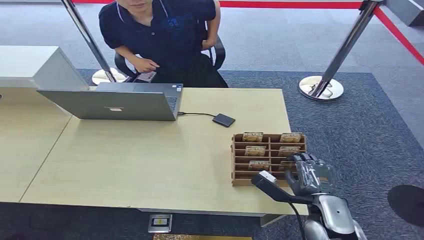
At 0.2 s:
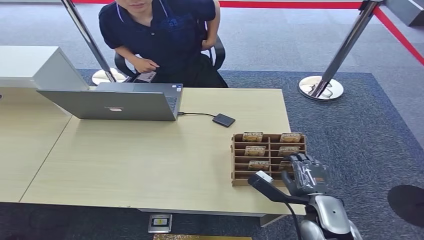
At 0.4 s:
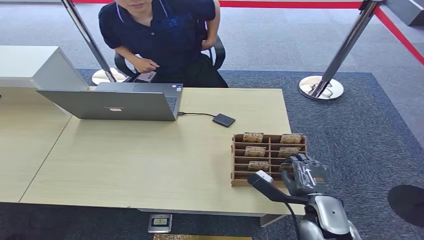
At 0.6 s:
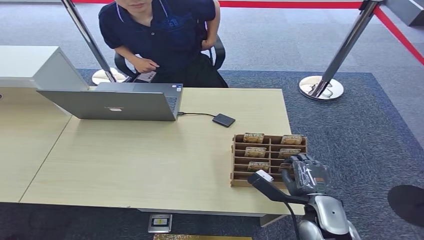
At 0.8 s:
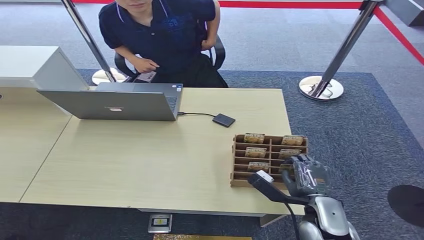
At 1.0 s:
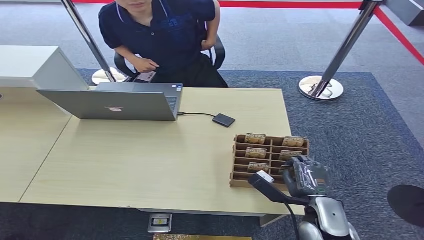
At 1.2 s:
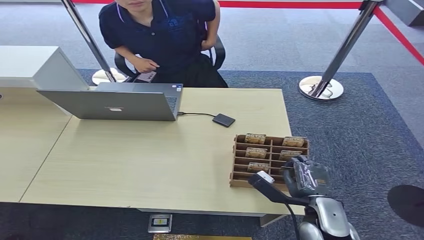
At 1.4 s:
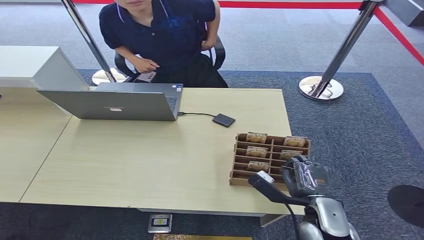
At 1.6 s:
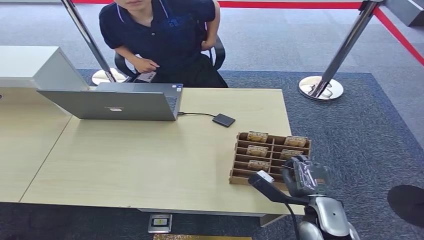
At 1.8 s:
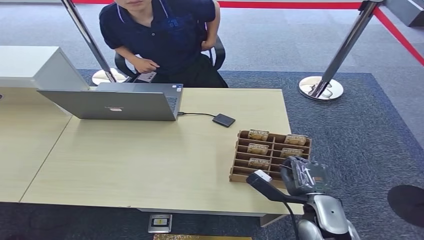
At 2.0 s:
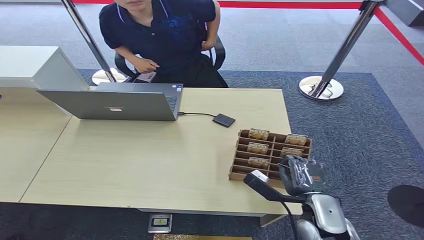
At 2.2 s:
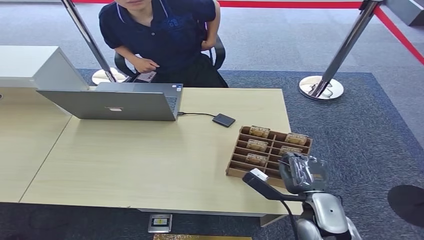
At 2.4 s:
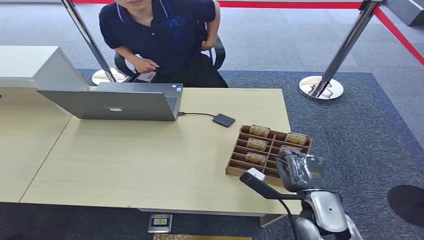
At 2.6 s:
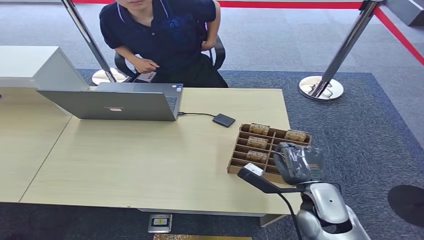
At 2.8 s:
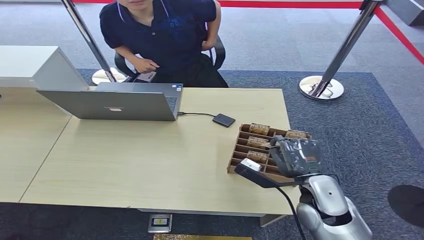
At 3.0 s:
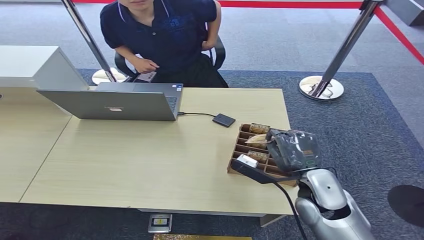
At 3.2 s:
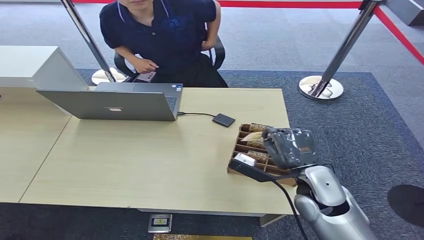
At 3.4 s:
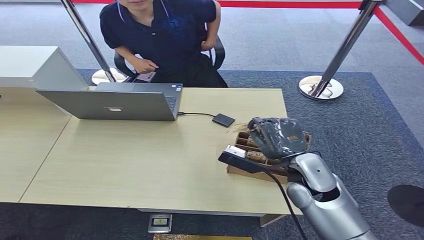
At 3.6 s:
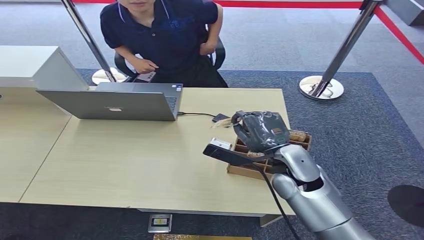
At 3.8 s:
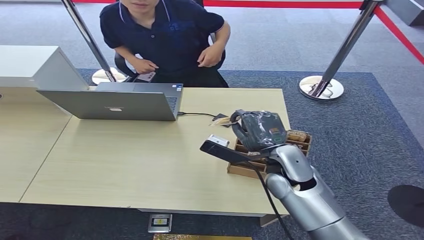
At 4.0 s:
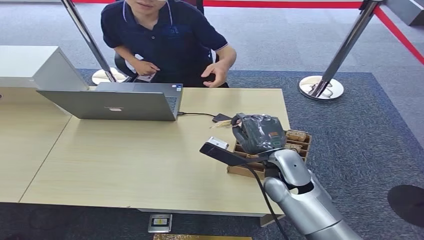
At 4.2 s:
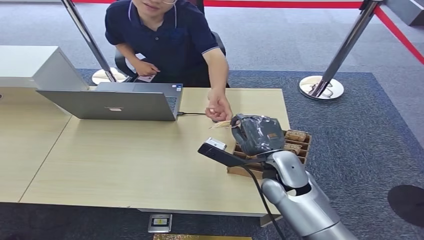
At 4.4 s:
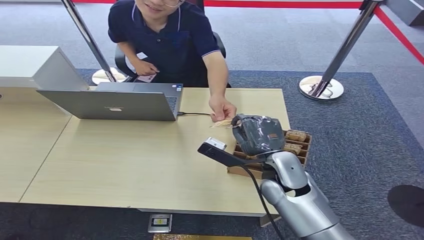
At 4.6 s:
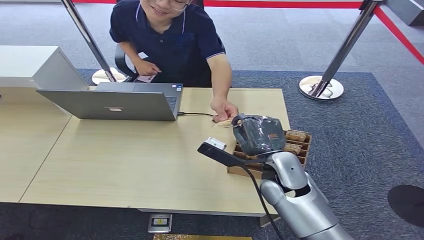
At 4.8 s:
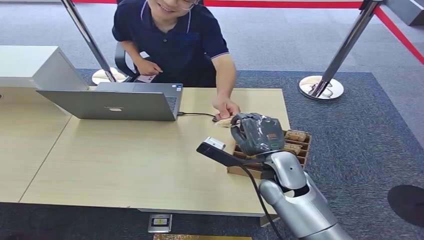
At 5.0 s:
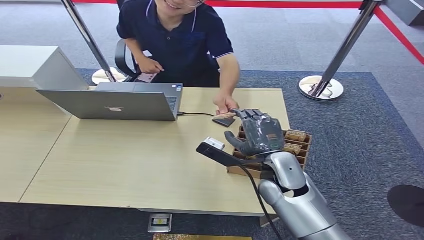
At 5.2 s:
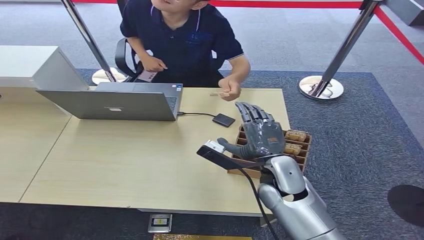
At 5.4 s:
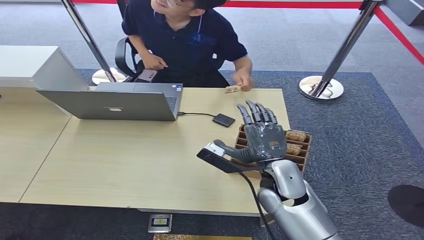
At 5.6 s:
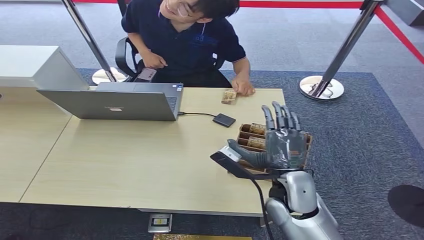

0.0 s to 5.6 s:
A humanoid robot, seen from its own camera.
Step, 0.0 to 3.6 s: Pick up the key card from the card box.
Step, 3.8 to 5.6 s: Hand the key card to the target.
1.4 to 2.8 s: The right hand travels upward by roughly 5 cm.
2.8 to 4.2 s: The right hand heads to the left and forward, covering roughly 10 cm.
4.2 to 5.6 s: The hands stay close to where they were, moving slightly.
